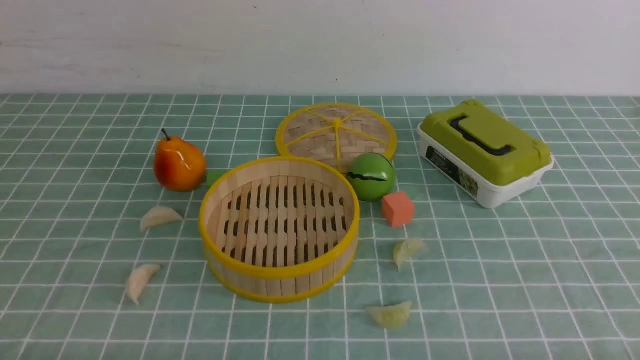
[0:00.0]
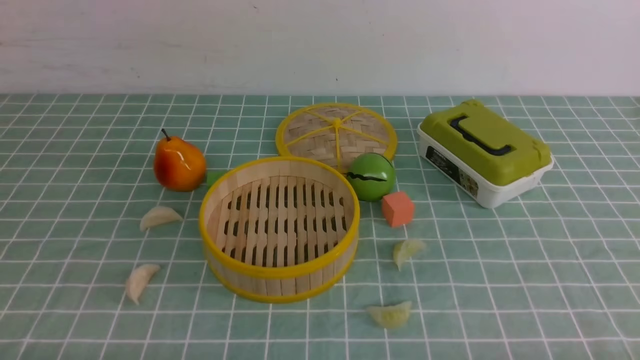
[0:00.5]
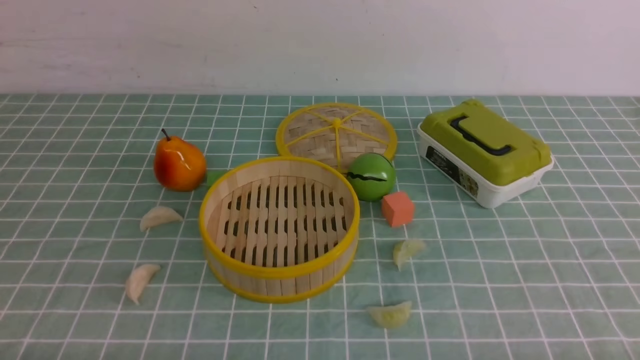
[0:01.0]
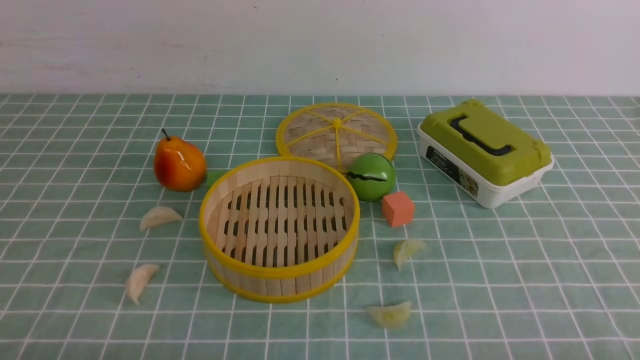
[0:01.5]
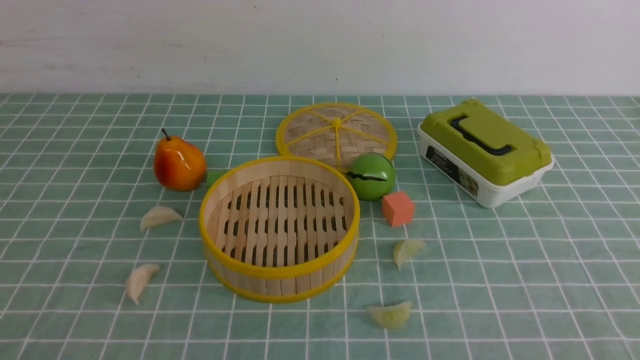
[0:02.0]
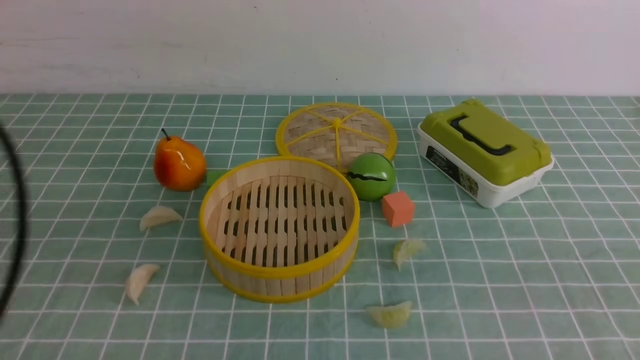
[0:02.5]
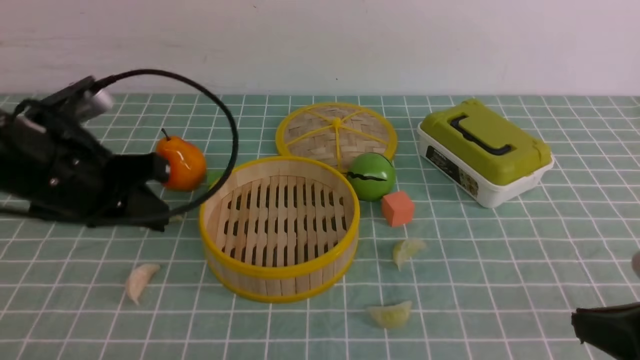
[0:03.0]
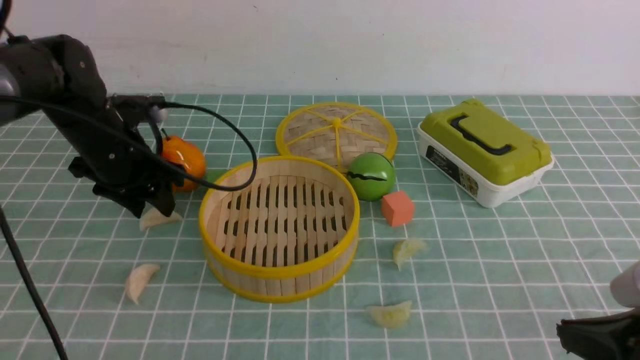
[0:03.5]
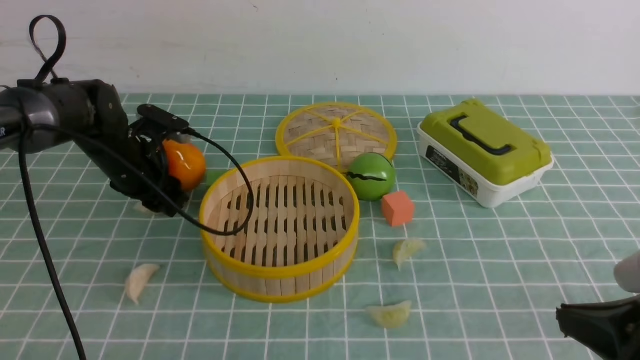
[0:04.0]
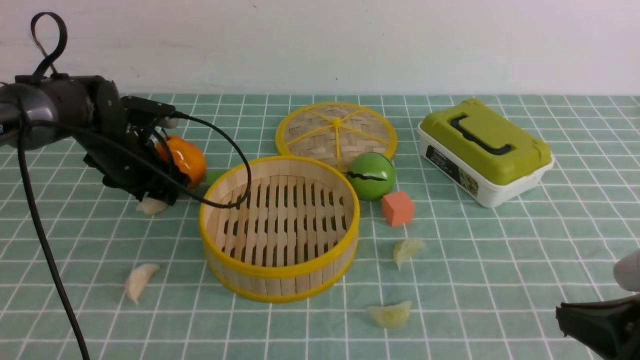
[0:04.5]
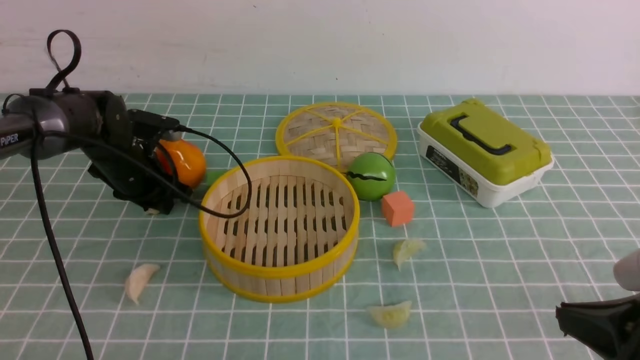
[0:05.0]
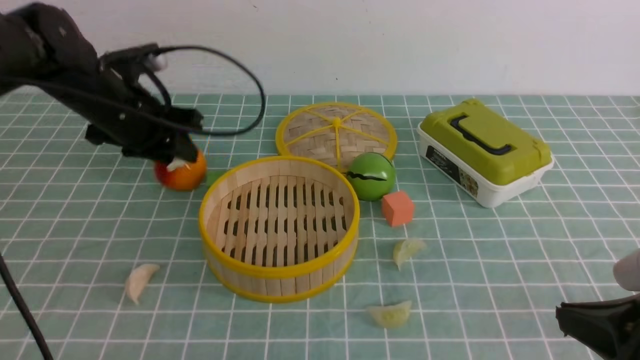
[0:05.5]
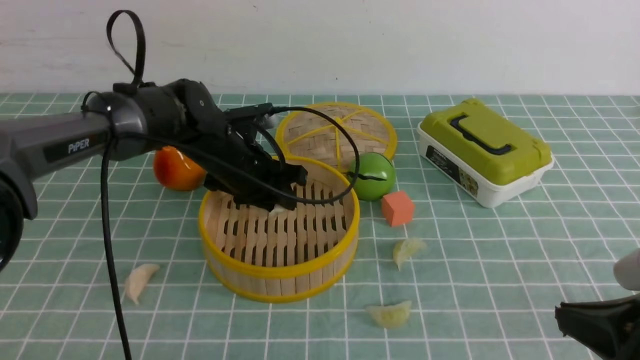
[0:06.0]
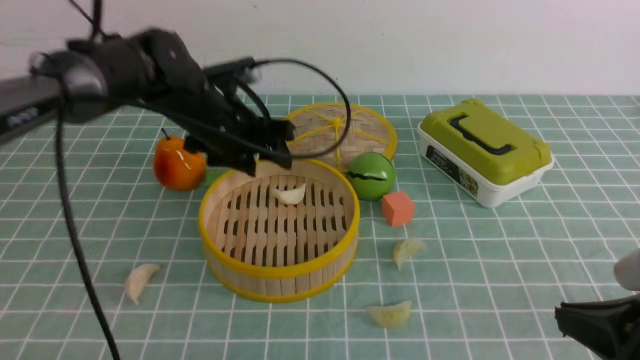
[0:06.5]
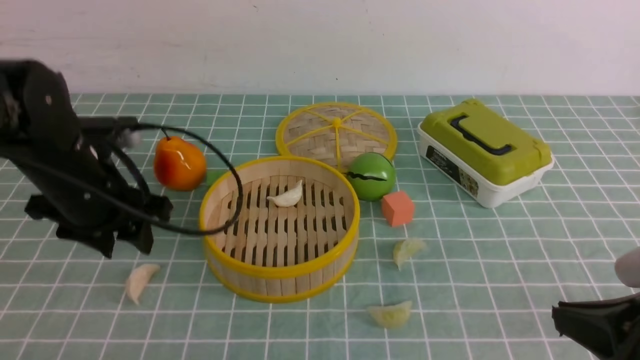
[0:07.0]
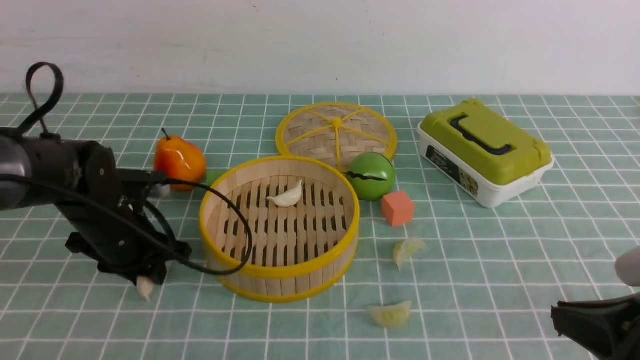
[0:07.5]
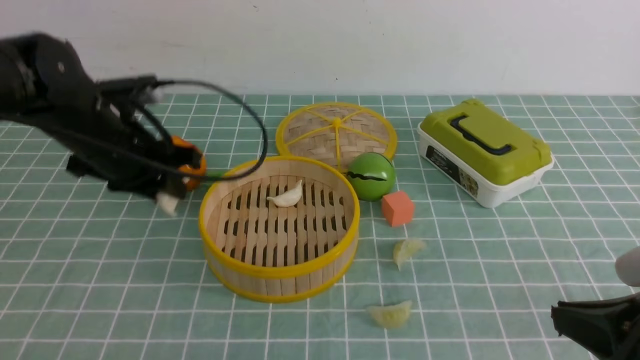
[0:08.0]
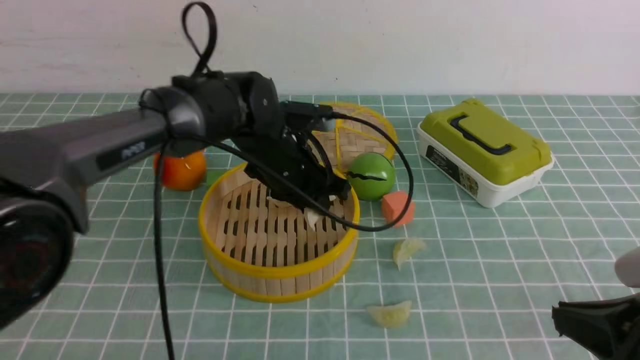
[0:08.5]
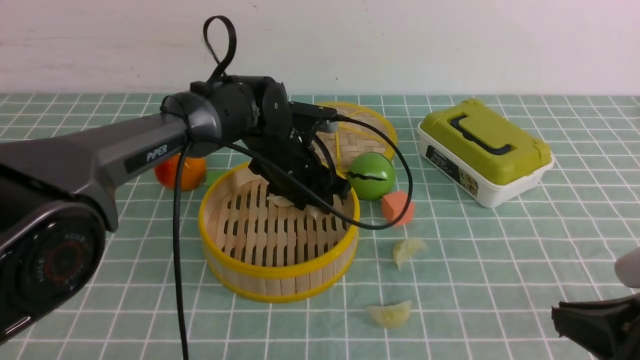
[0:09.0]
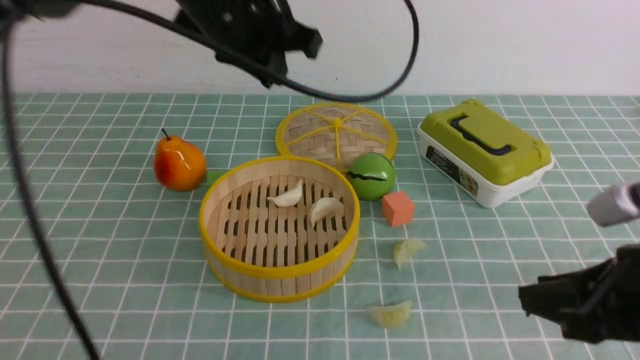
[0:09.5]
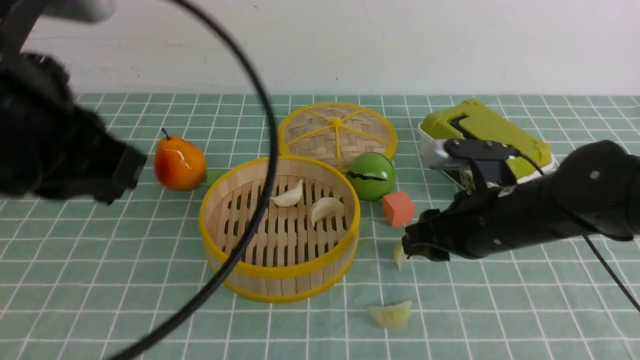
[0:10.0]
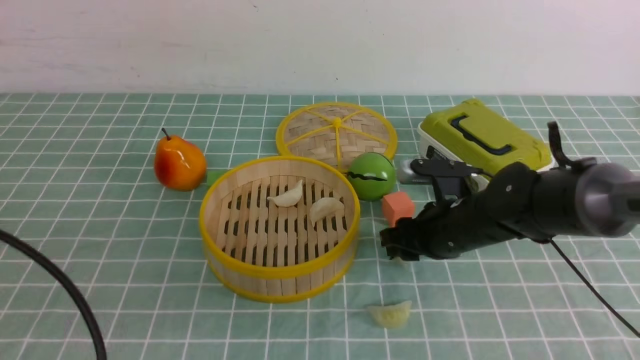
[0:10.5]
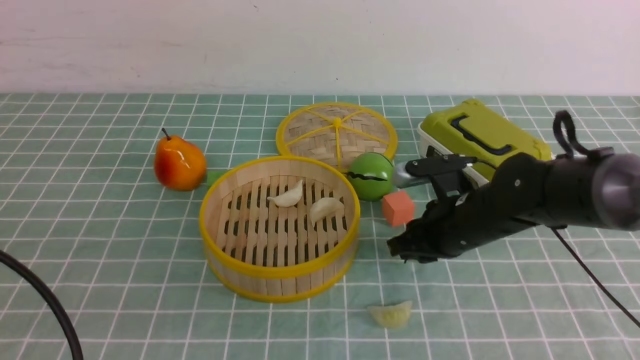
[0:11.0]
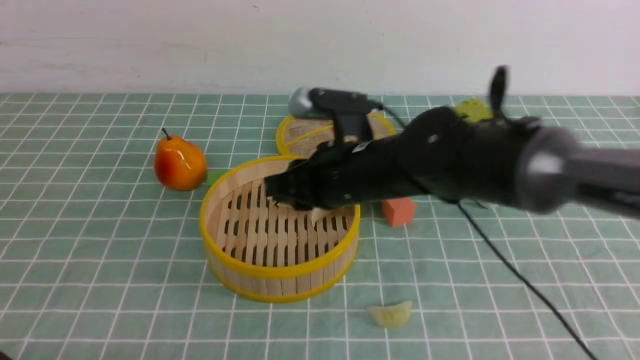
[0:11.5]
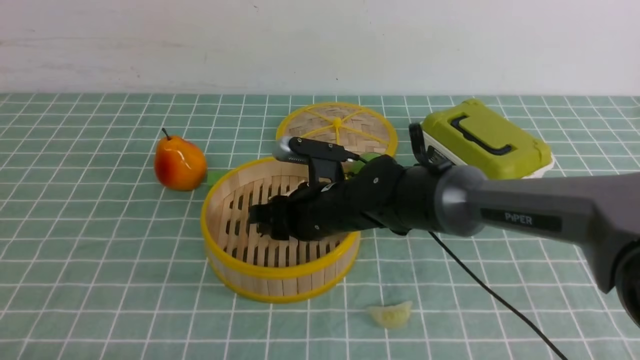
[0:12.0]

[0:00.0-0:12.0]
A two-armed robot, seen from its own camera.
Task of the whole recording: put the dumplings into the steamer on the table with the blue tablecloth.
Step, 0:00.0 to 0:04.5: use the left arm to grab a dumpling.
Step, 0:05.0 to 0:06.0: use the left arm to put the dumpling into the steamer.
Step, 0:06.5 to 0:07.5: use the left arm to grab a dumpling.
Step, 0:08.0 to 0:09.0: use the left arm to put the dumpling into the steamer.
Step, 0:09.5 to 0:10.5: use the right arm to grab a dumpling.
0:02.0 to 0:04.0: The right gripper shifts roughly 10 cm forward and to the left, while the left gripper shifts about 40 cm forward, and opens up.
0:04.0 to 0:06.0: The left gripper goes some 15 cm to the right.
0:06.0 to 0:08.0: The left gripper swings up and down, roughly 10 cm each way, with 2 reversals.
0:08.0 to 0:10.0: The right gripper goes roughly 20 cm forward and to the left, and opens, while the left gripper goes about 25 cm backward and upward, and closes.
0:10.0 to 0:12.0: The left gripper goes roughly 20 cm downward, backward and to the left. Meanwhile the right gripper goes some 20 cm to the left and forward.

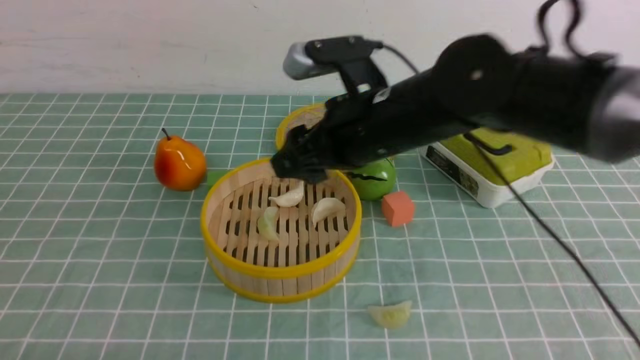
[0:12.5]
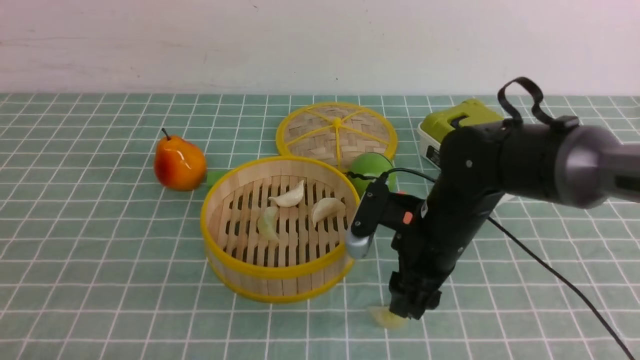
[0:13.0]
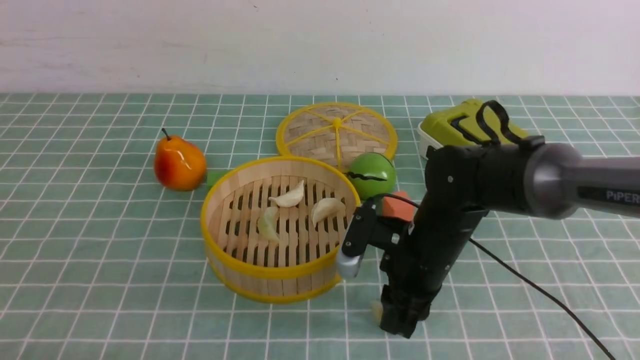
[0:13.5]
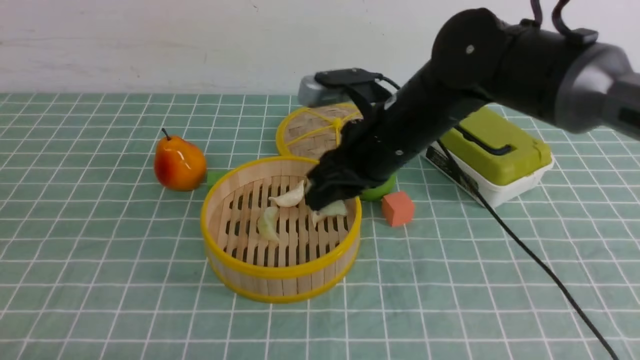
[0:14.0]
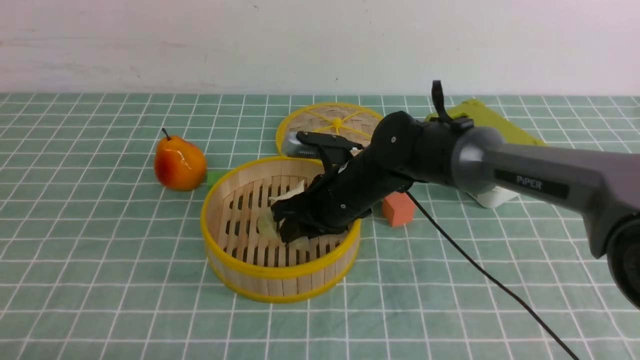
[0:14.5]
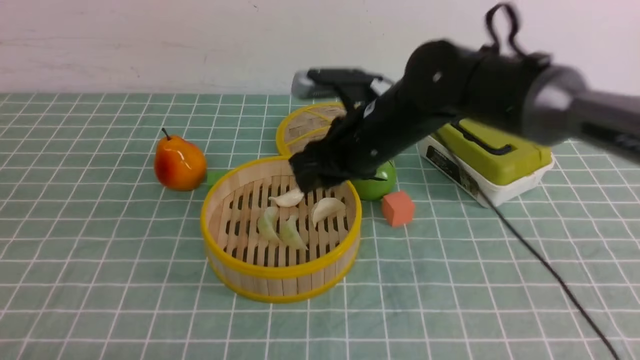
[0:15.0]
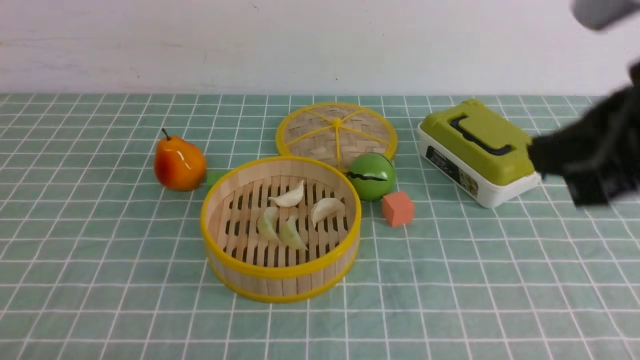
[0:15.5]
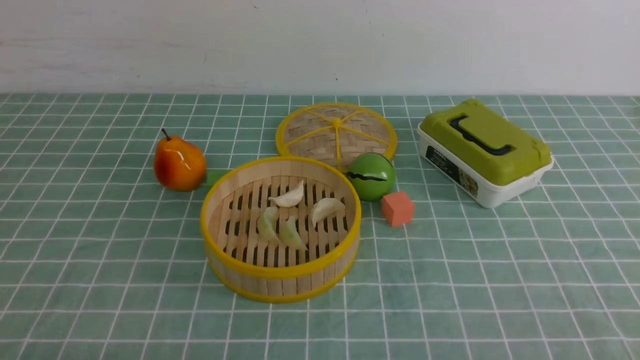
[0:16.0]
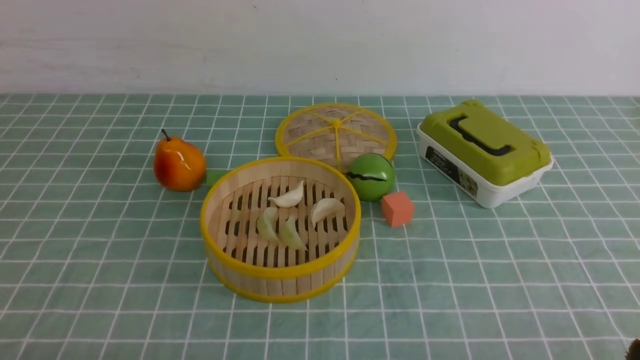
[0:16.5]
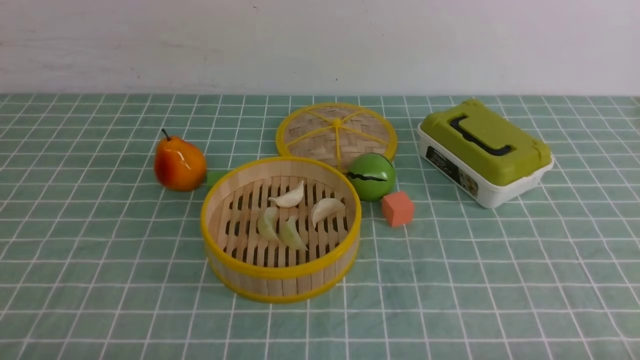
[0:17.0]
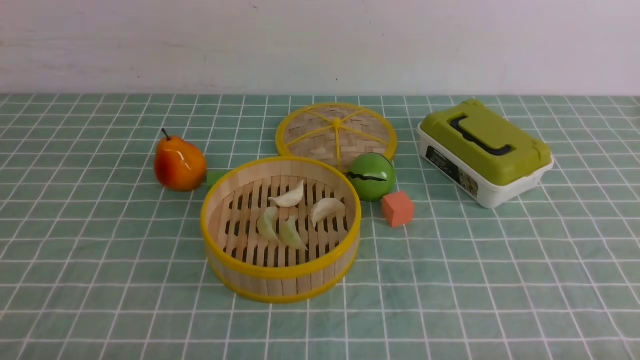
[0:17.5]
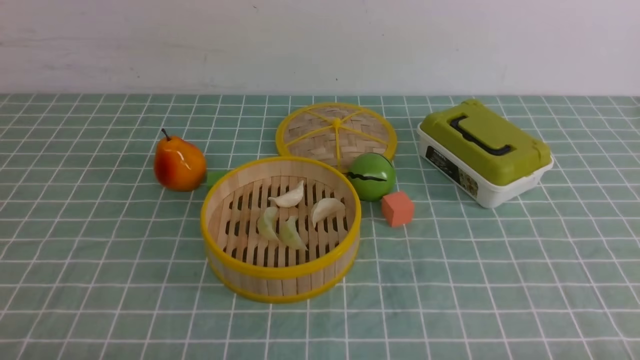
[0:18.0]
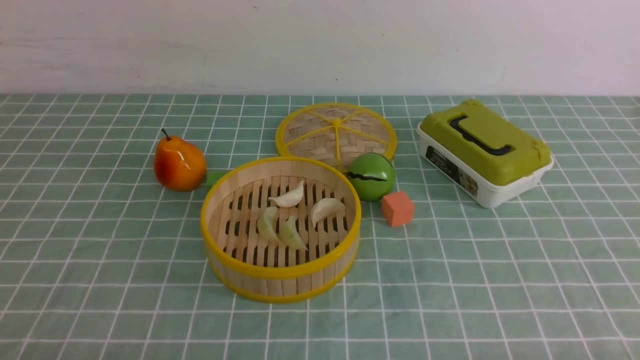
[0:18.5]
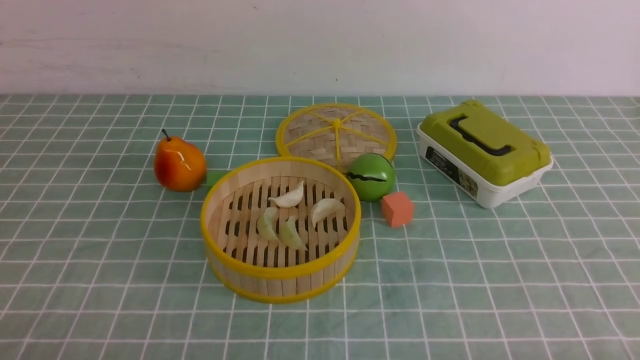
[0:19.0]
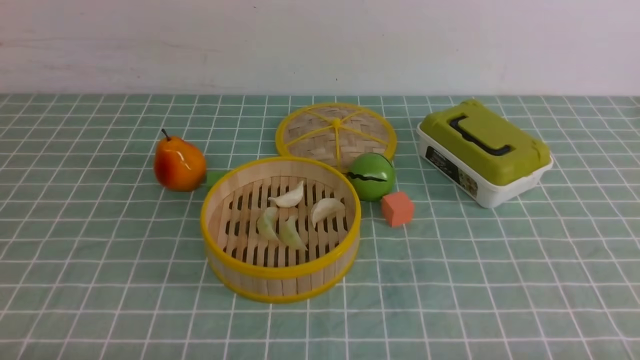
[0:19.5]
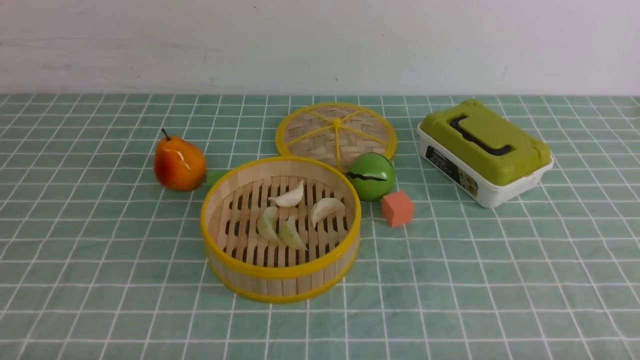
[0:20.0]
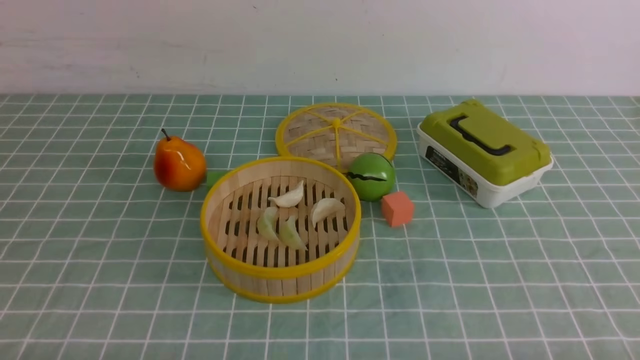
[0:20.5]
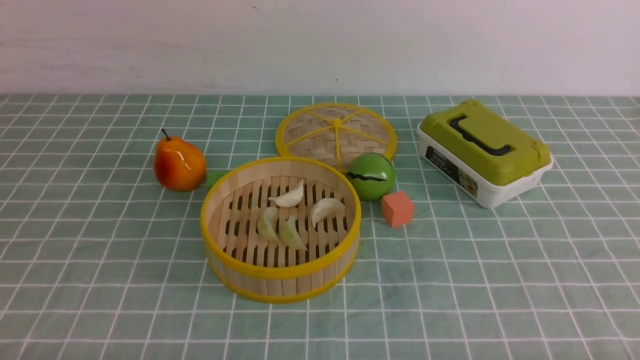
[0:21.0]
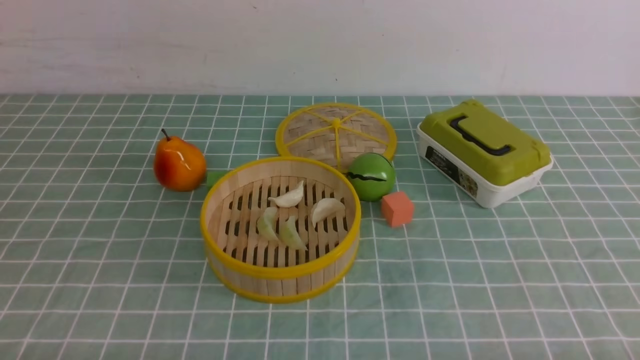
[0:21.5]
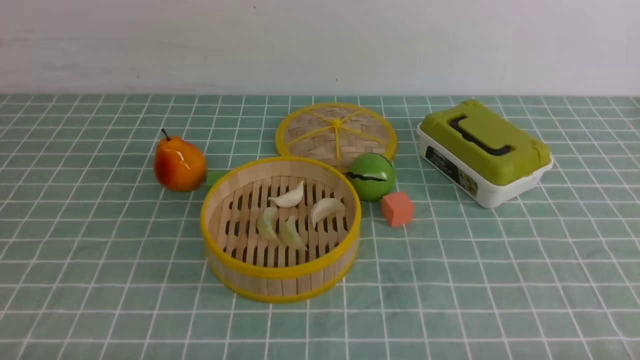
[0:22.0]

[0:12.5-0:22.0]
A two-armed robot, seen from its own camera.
Task of the whole recording: put the dumplings into the steamer on the table with the blue tablecloth.
Step, 0:12.5 to 0:13.5: use the right arm to grab a dumpling.
Step, 0:14.0 to 0:15.0: use the right arm to put the dumpling into the steamer.
0:12.5 to 0:14.5: The right gripper swings up and down, roughly 10 cm each way, with 2 reversals, and closes up.
0:14.5 to 0:16.5: The right gripper moves backward and to the right, some 40 cm, and closes its fingers.
0:20.0 to 0:22.0: Both grippers stay about where they are.
